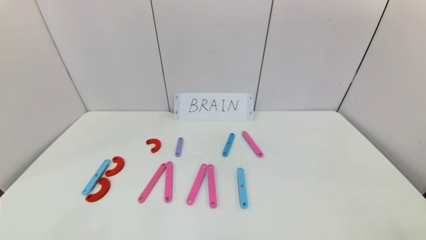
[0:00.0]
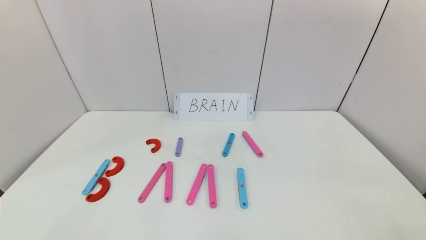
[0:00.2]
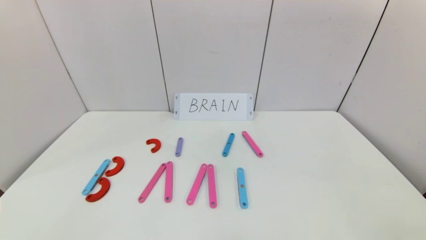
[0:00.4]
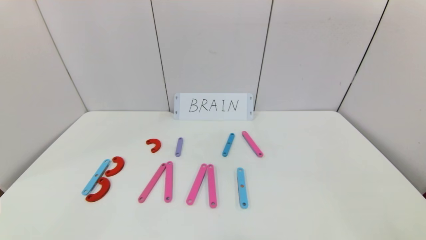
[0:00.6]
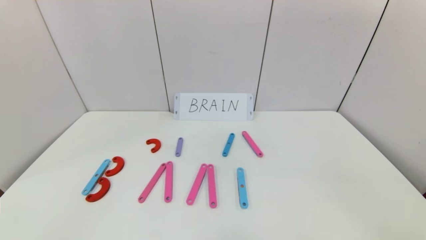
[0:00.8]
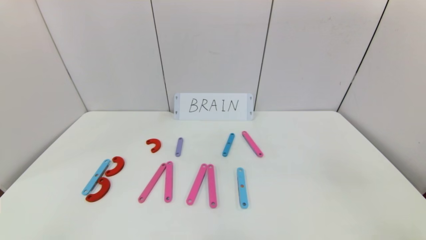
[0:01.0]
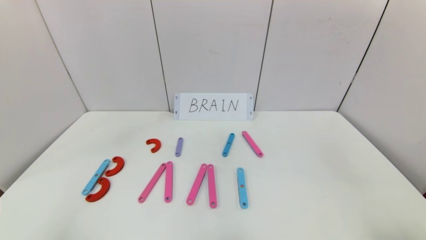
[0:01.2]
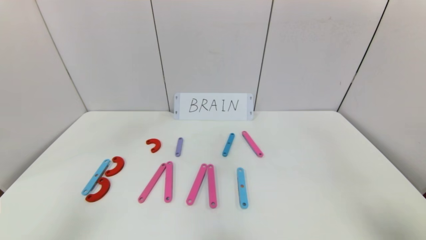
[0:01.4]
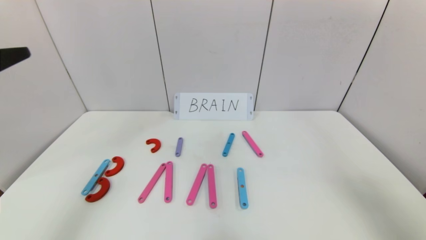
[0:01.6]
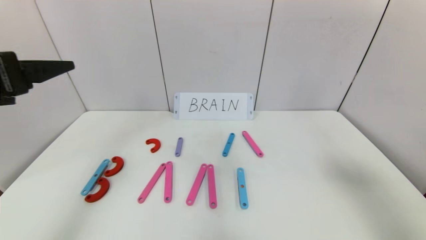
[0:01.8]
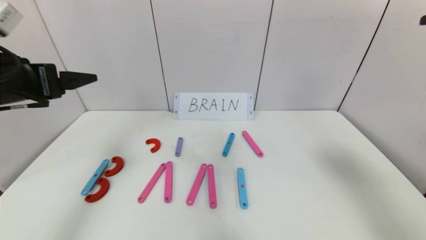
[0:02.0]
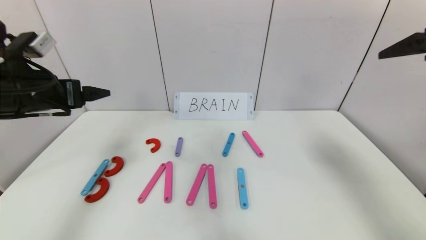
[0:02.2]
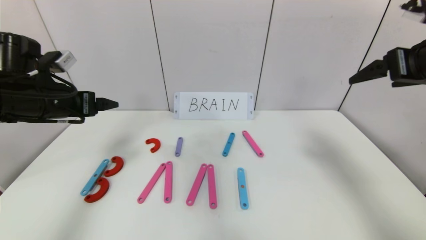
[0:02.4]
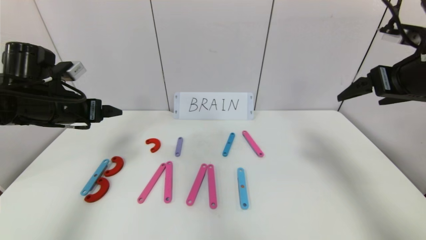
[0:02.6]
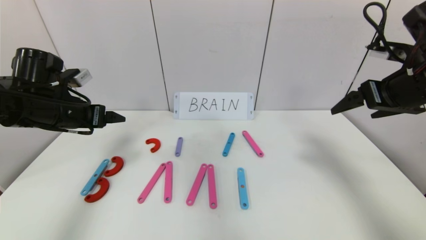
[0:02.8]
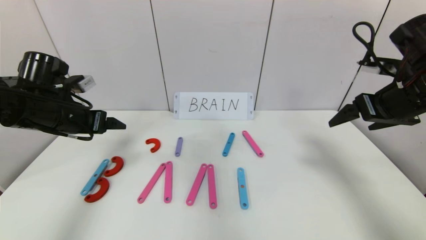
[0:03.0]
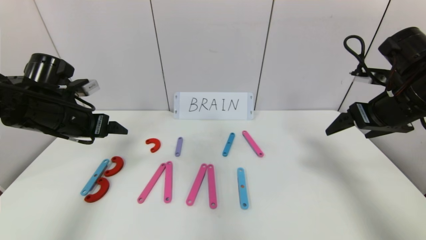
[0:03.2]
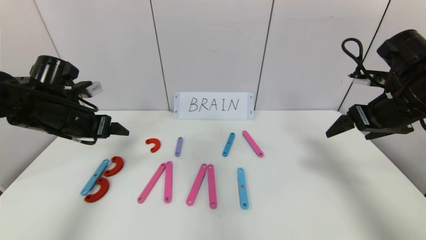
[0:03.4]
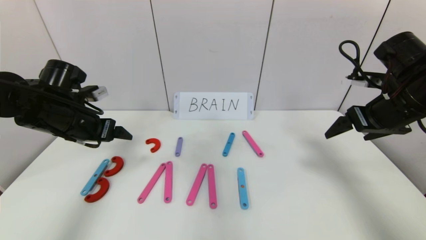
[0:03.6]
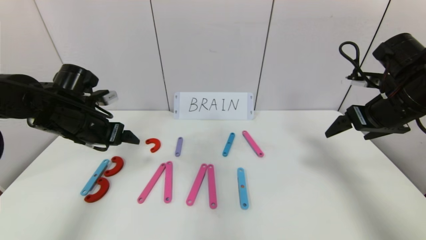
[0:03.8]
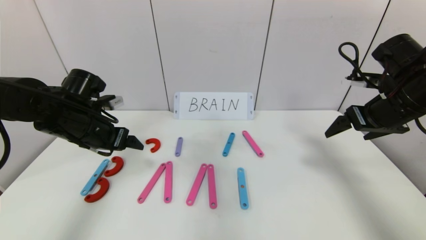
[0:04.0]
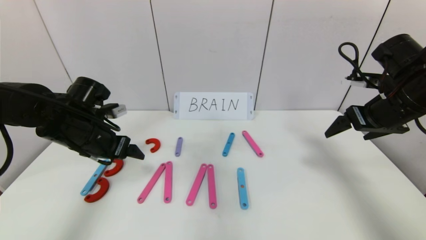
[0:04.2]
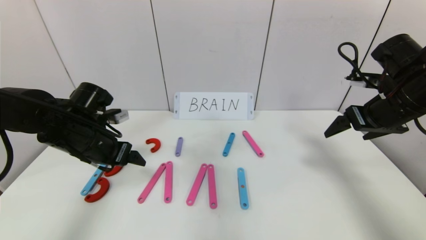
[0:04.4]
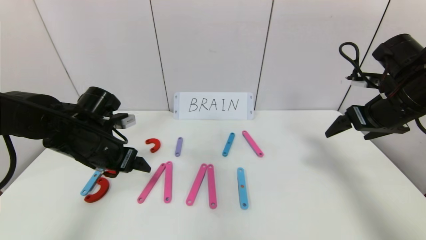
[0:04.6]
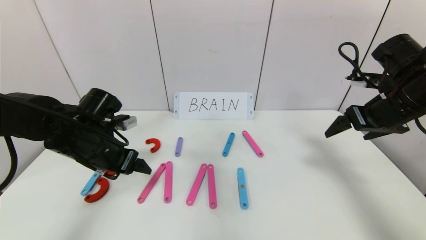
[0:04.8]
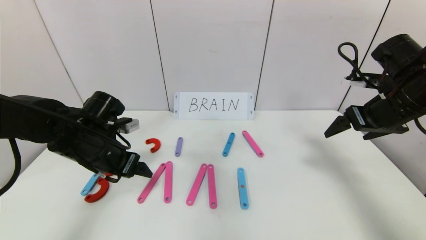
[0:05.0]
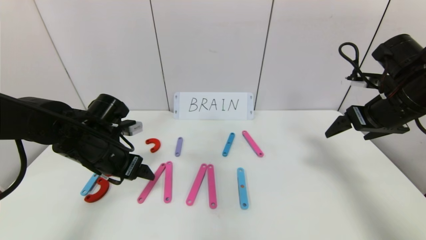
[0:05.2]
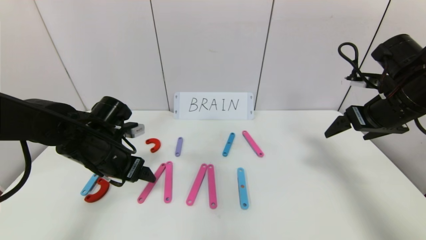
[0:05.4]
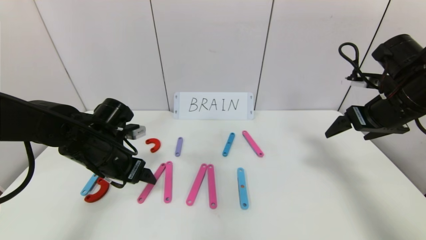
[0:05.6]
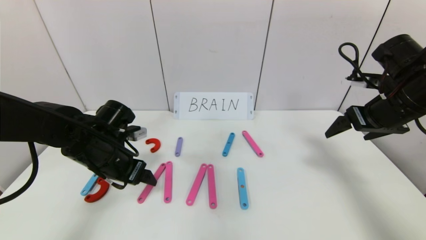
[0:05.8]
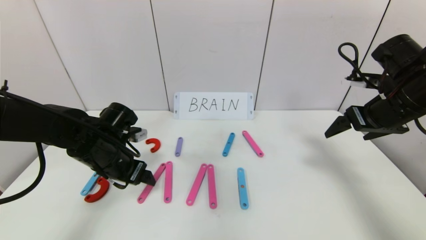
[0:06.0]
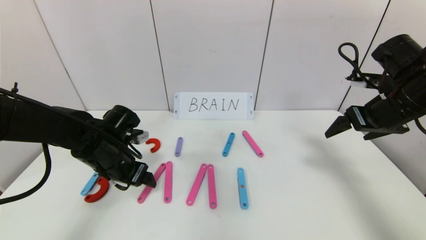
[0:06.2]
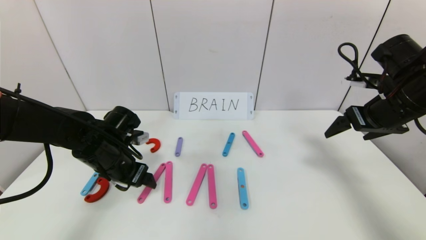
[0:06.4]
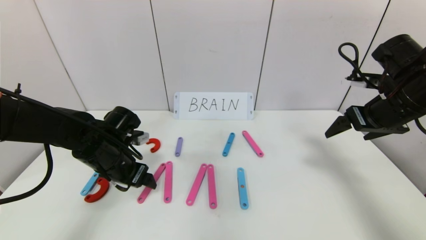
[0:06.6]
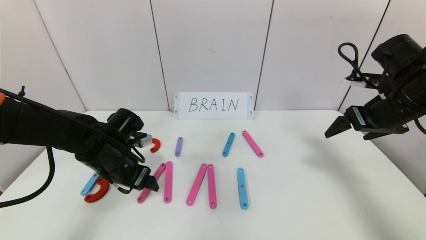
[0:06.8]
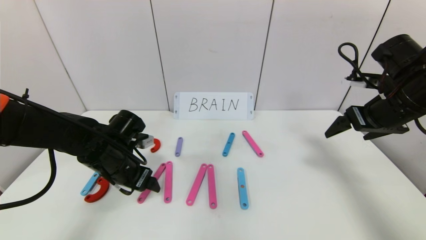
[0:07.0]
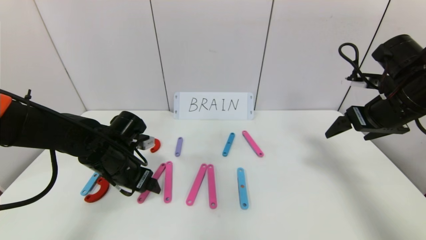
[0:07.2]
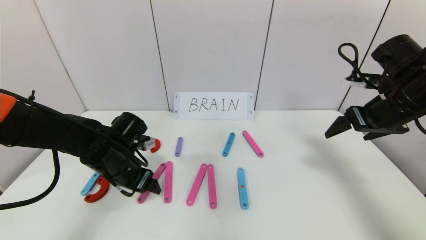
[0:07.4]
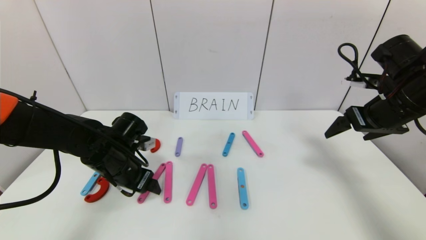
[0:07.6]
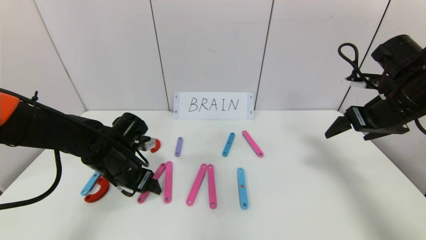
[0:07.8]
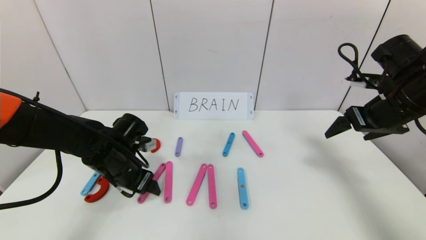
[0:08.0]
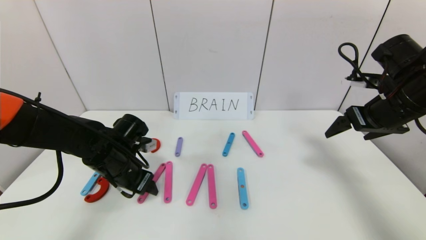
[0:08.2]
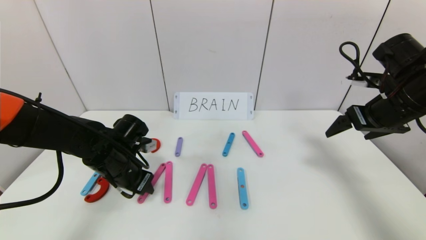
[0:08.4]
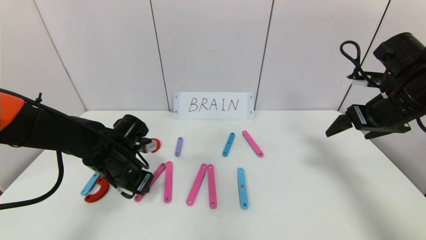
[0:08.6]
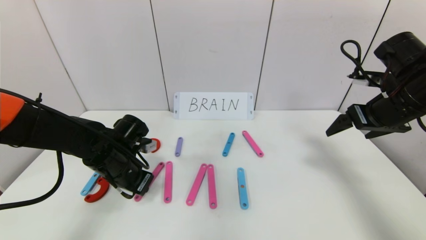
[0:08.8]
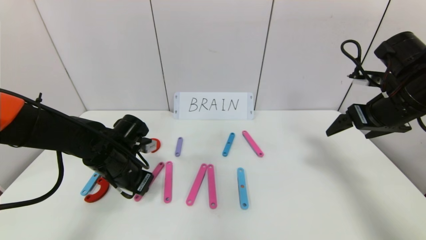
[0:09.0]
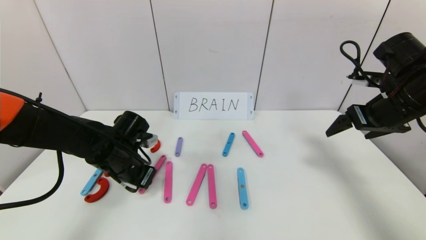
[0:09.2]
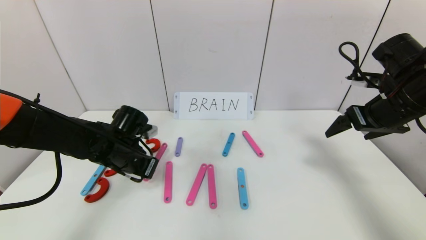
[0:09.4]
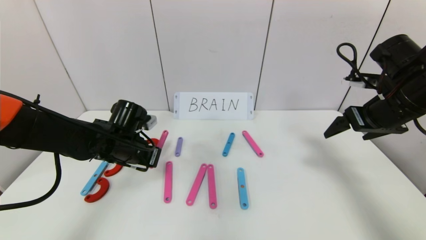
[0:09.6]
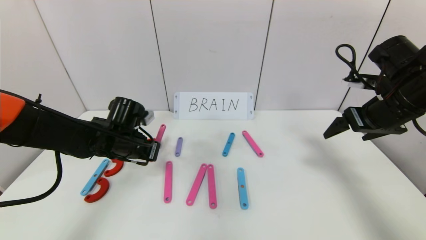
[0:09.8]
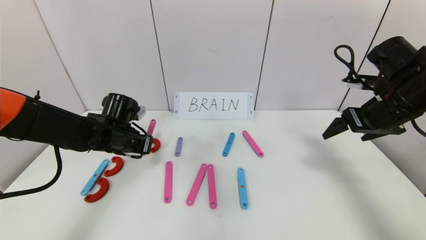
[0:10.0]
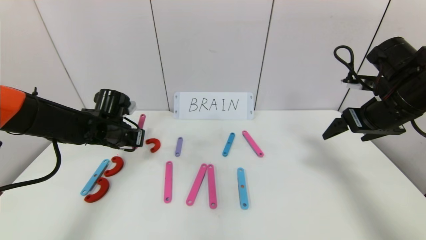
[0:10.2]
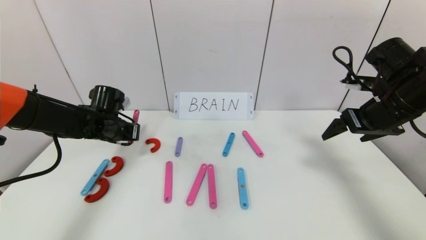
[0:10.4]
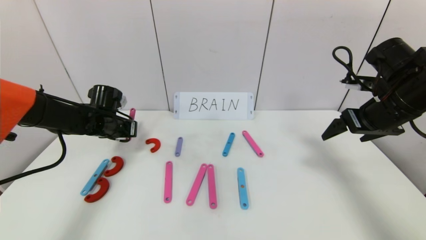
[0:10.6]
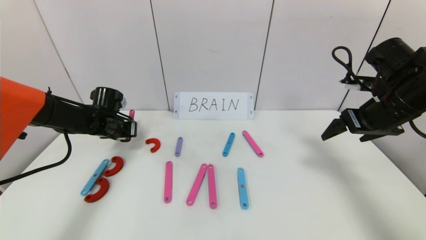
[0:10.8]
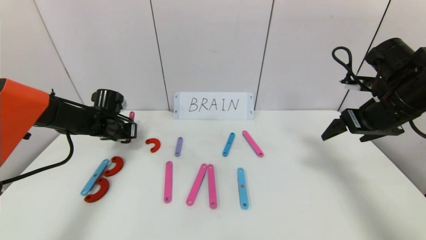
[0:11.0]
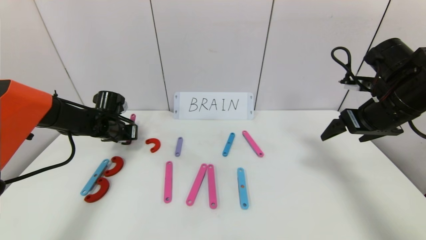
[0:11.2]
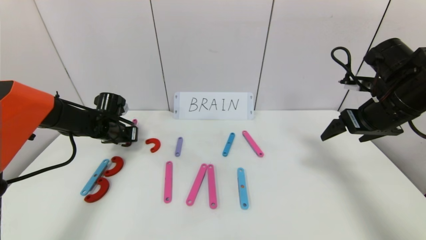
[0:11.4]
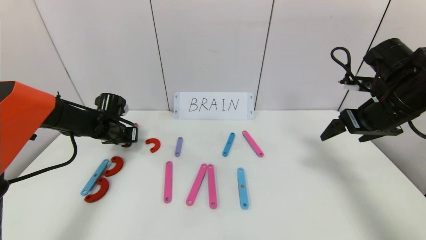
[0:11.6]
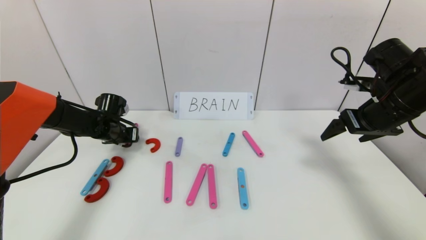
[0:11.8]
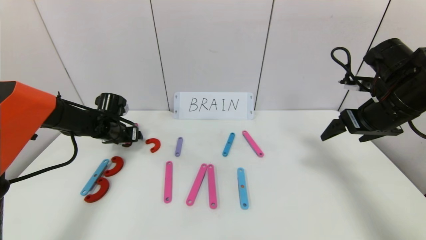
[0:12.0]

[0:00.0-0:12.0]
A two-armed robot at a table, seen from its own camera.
Task of the whole recording: rearrange the word baai as brain.
0:00.0 to 0:01.6: The left gripper shifts roughly 30 cm upward and forward. Meanwhile the right gripper goes about 30 cm upward.
0:01.6 to 0:03.0: The grippers both shift forward and downward by approximately 20 cm.
0:03.0 to 0:04.4: The left gripper changes place by approximately 5 cm.
0:04.4 to 0:06.0: The grippers make only small movements.
0:06.0 to 0:07.6: The grippers stay close to where they were, moving slightly.
0:07.6 to 0:09.0: The left gripper closes up.
0:09.0 to 0:10.4: The left gripper goes roughly 10 cm forward and to the left.
0:10.4 to 0:12.0: The left gripper moves roughly 5 cm, and opens its fingers.

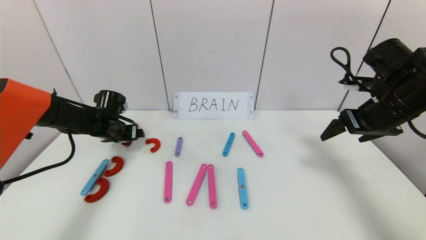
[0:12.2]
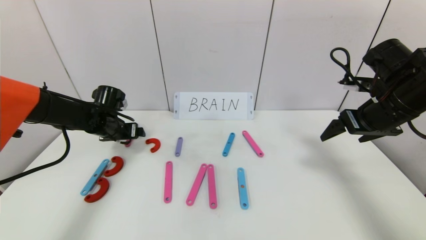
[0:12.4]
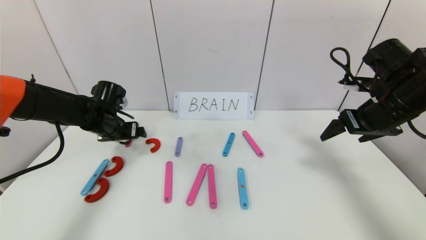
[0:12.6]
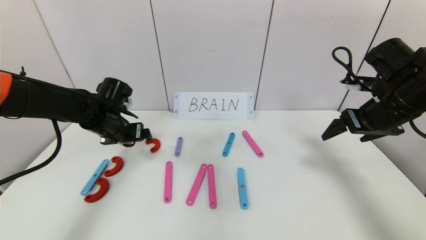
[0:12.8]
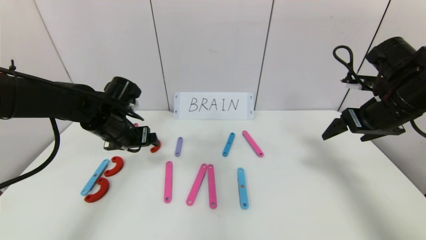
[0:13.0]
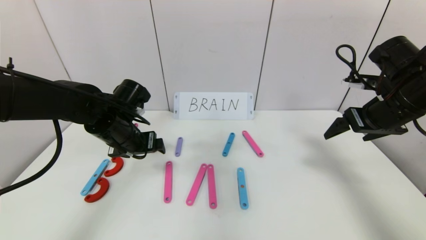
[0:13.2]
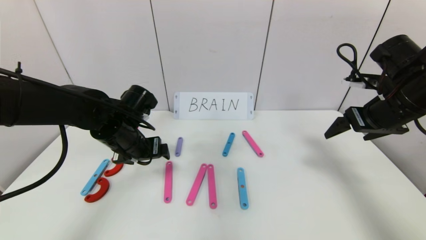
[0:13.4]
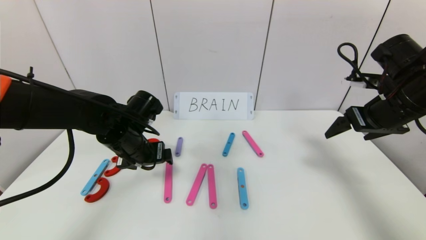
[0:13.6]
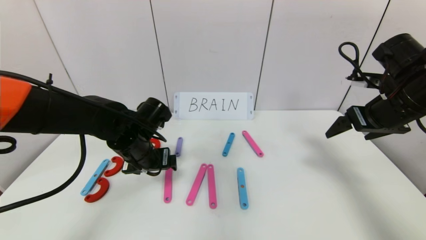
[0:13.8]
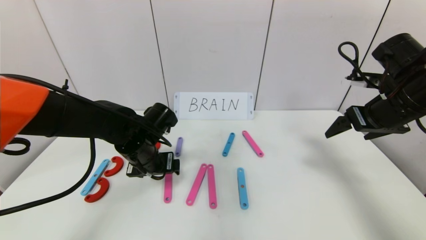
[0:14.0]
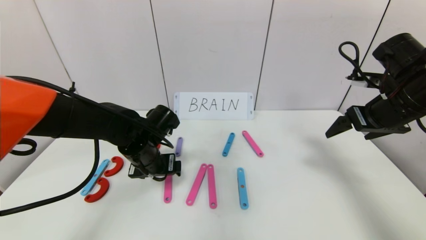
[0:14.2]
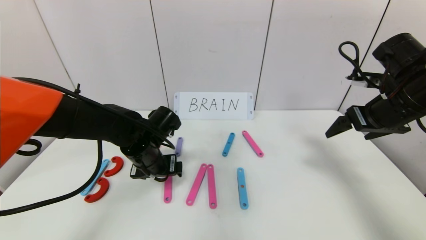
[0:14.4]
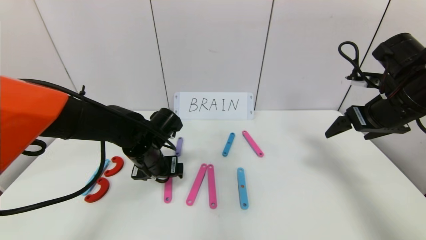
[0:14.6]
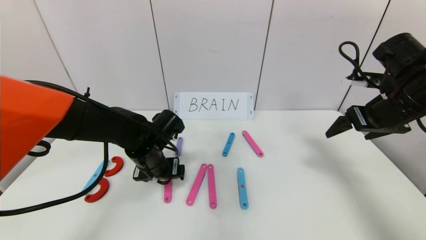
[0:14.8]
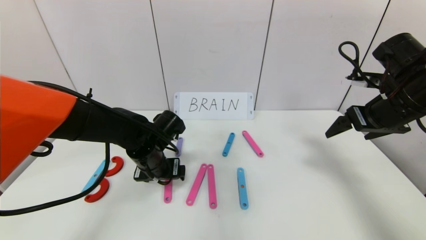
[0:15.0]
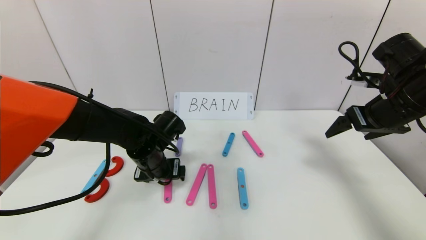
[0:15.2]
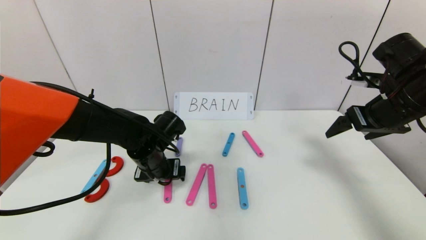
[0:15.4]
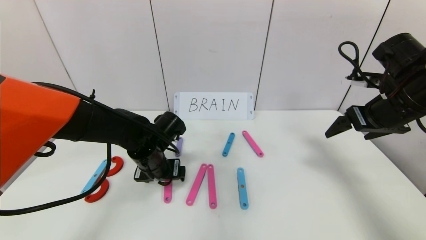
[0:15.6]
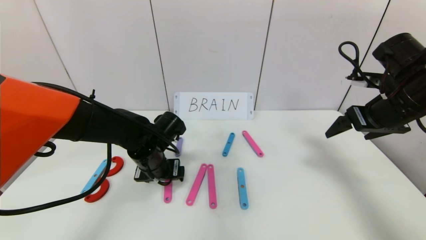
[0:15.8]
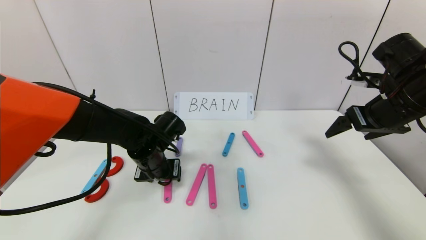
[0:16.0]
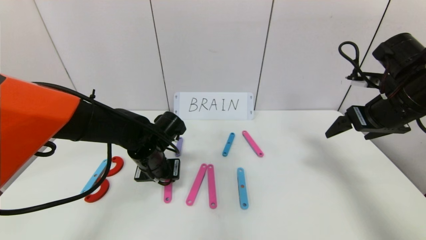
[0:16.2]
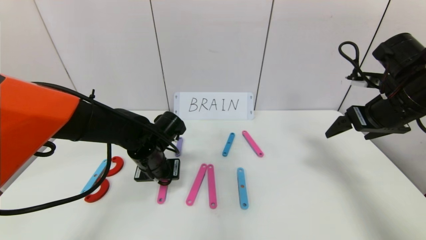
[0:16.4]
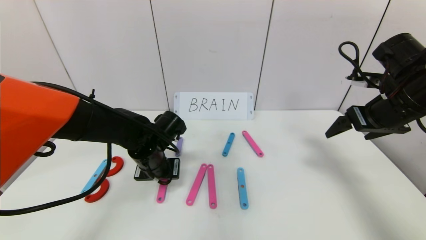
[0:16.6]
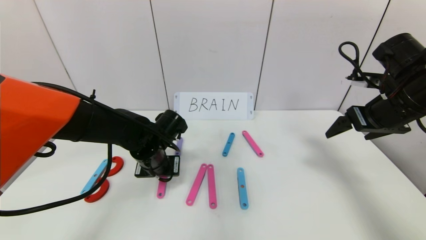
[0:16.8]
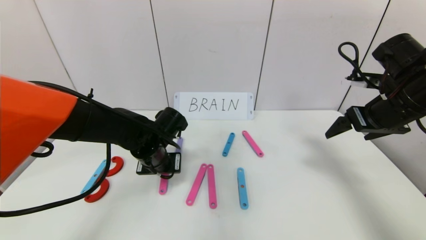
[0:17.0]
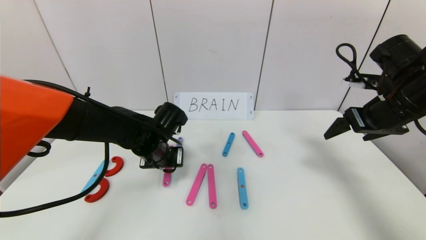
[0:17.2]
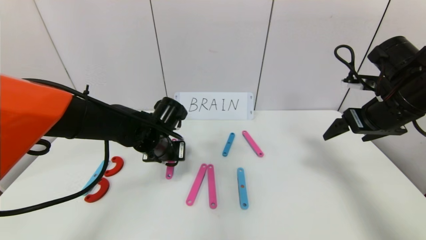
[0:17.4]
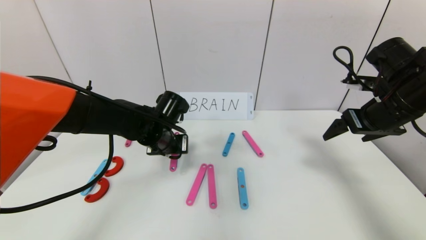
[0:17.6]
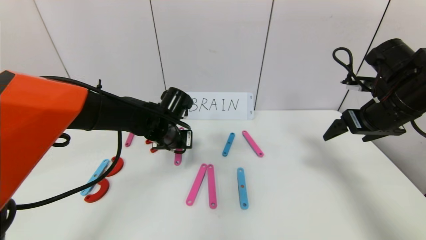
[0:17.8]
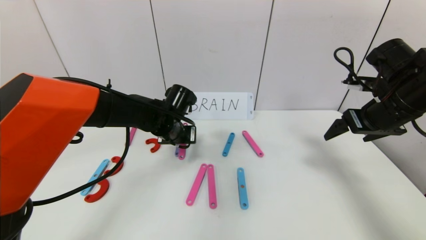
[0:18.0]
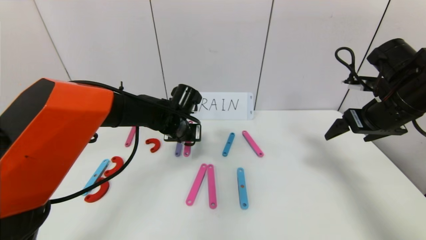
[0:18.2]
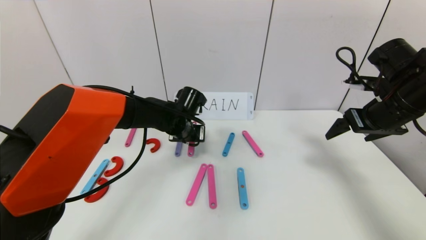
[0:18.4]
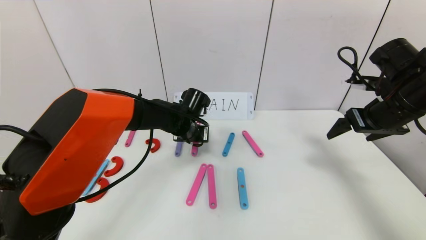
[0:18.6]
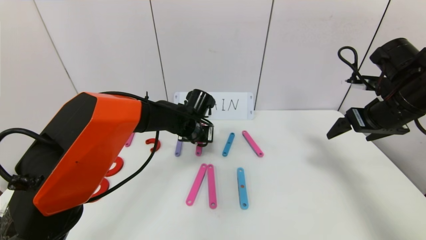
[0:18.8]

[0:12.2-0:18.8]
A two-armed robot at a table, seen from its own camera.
Task of the whole recording: rearrange the word baai as brain.
0:12.2 to 0:13.8: The left gripper is displaced to the right and backward by some 15 cm.
0:13.8 to 0:15.4: The grippers make only small movements.
0:15.4 to 0:17.2: The left gripper closes its fingers.
0:17.2 to 0:18.8: The left gripper is displaced forward and to the right by approximately 10 cm.
